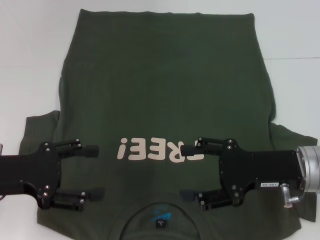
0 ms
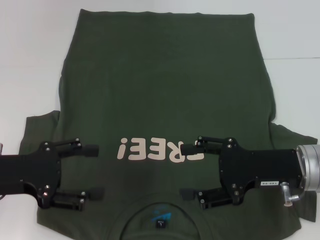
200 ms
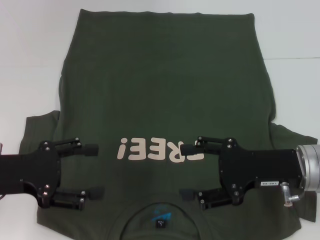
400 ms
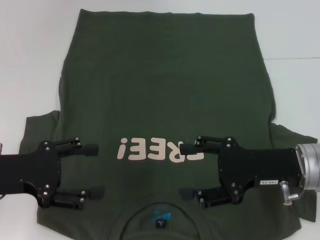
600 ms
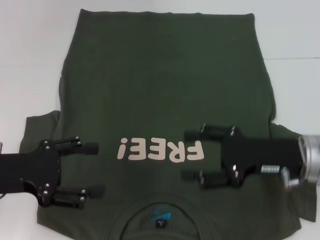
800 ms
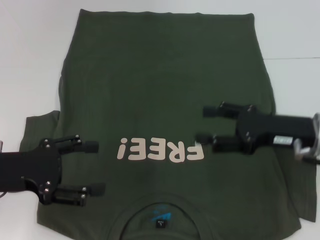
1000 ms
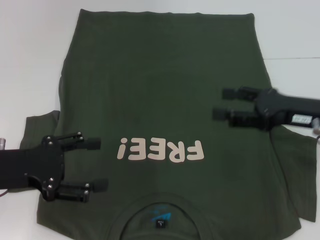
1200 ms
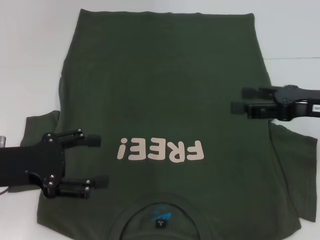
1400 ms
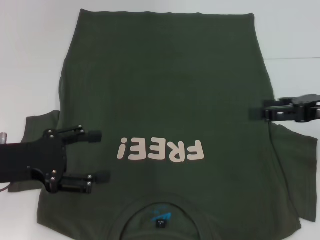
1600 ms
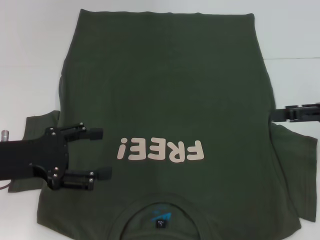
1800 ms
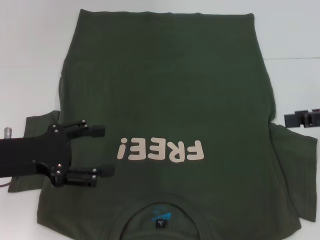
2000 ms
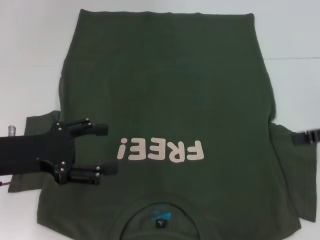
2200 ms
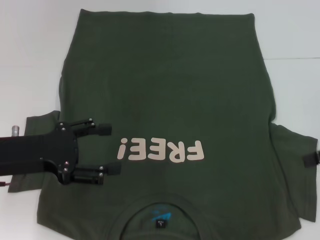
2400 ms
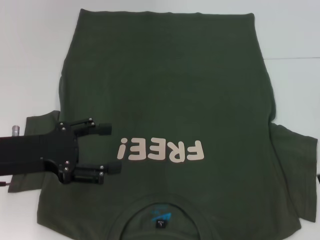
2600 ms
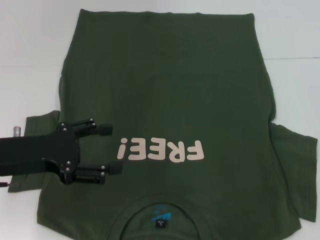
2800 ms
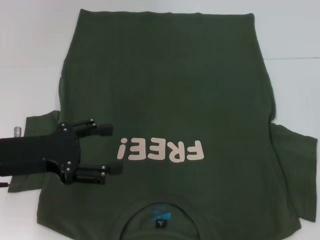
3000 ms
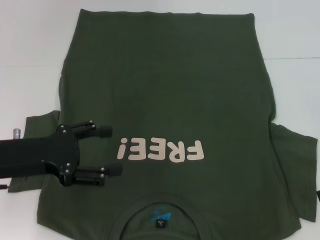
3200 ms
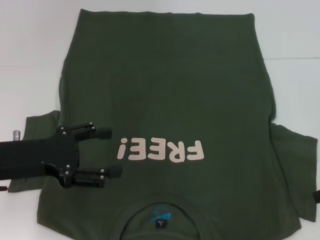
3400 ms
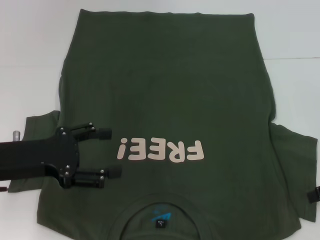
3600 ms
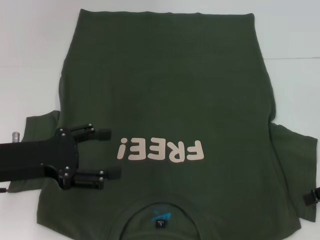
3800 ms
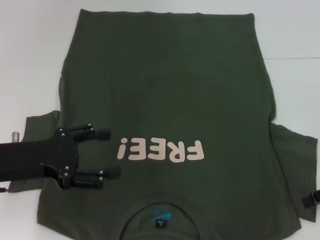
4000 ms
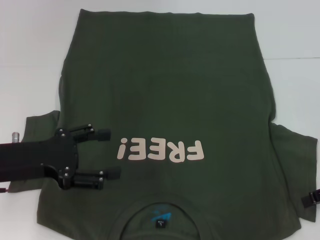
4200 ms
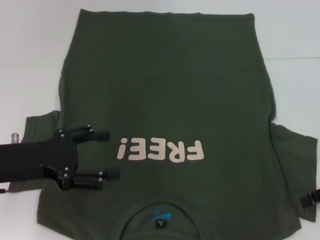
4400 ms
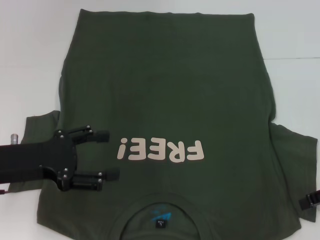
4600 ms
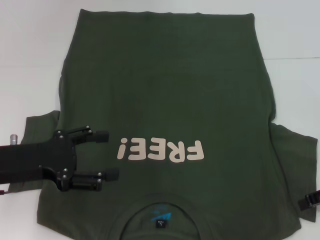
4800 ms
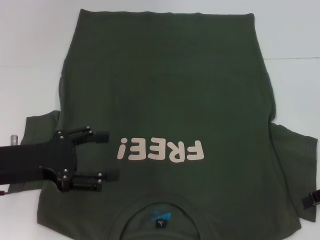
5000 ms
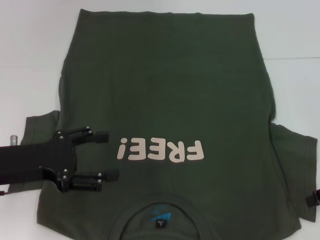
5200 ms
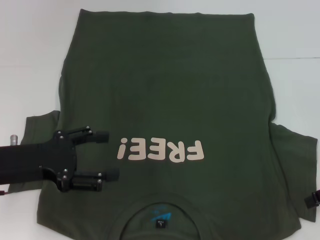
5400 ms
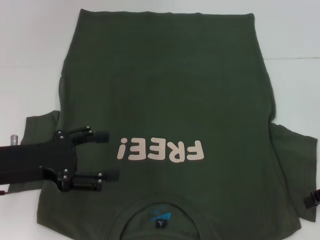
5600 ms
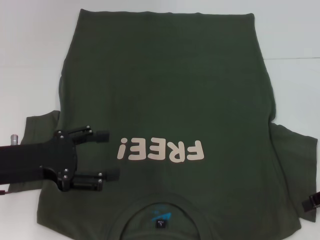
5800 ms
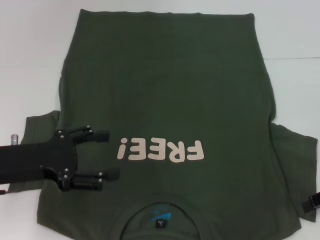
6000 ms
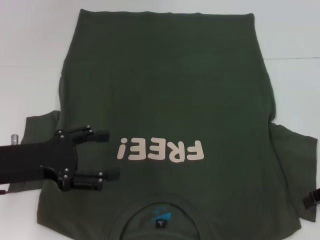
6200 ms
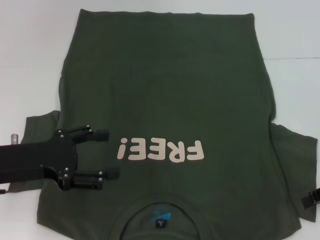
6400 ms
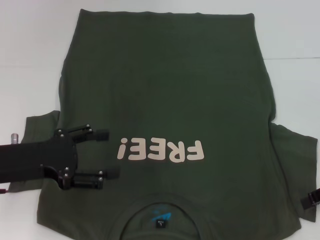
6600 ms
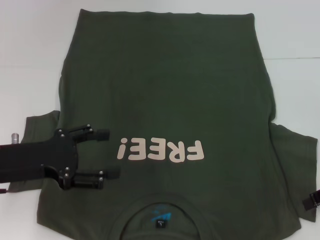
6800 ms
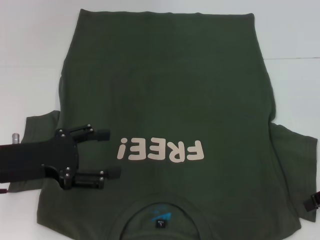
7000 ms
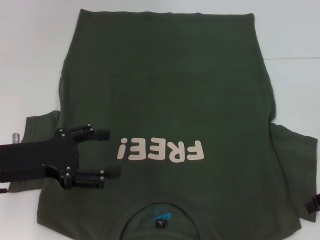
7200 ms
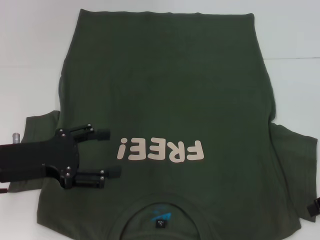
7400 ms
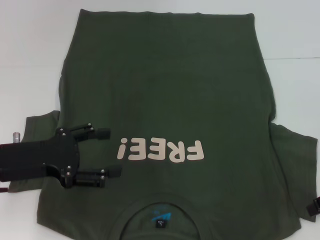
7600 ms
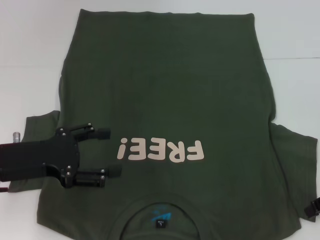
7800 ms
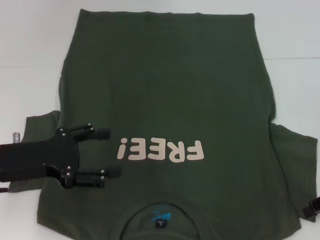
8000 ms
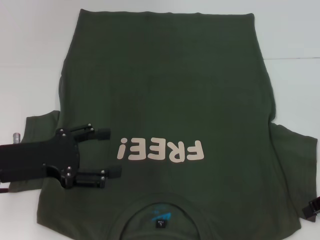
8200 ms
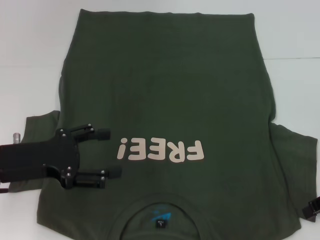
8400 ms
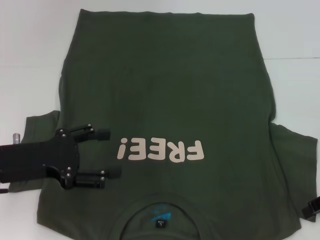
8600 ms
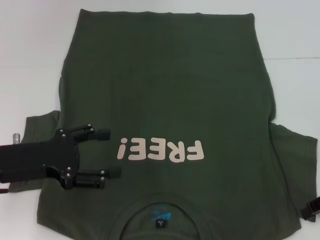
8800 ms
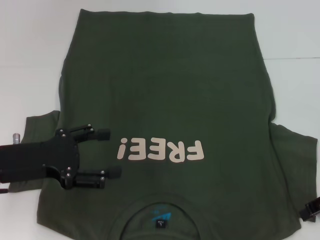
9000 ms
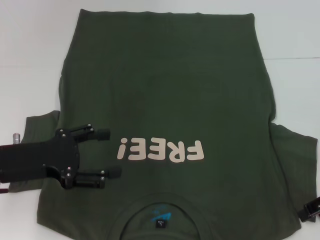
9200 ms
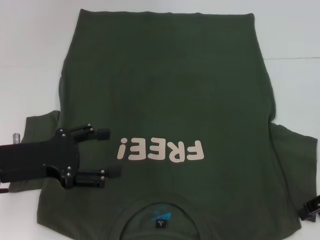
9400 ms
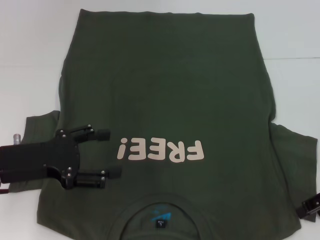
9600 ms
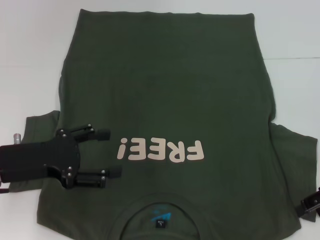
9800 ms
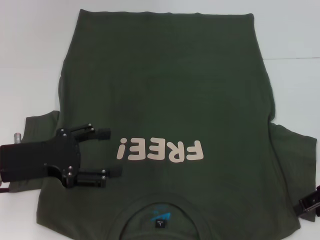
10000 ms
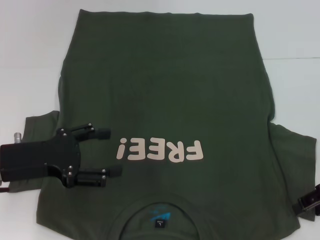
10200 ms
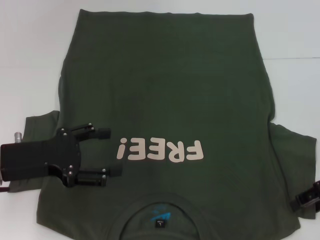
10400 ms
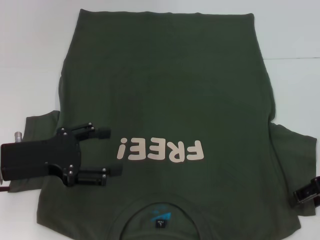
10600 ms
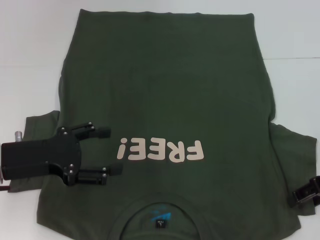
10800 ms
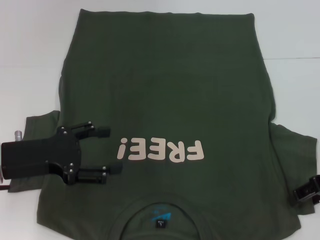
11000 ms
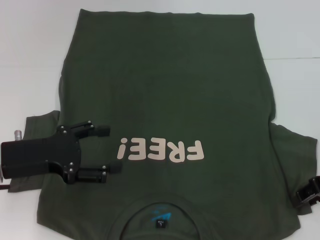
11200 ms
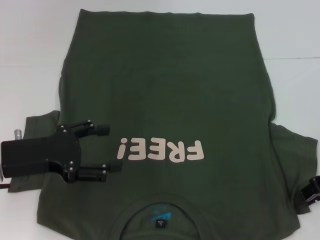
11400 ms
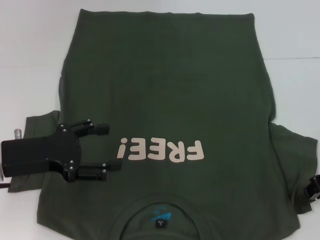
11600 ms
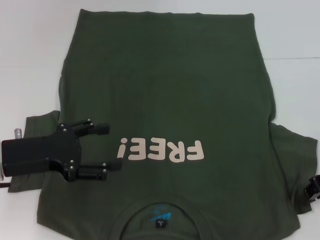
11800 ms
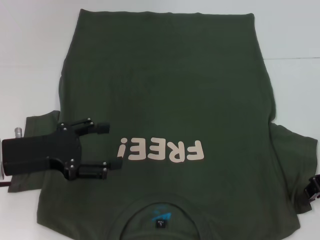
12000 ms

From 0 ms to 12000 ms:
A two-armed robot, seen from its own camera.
From 0 ms to 1600 ms: The right gripper goes roughly 10 cm to the right and upward.
From 1600 ms to 3000 ms: The right gripper shifts about 5 cm to the right.
From 3000 ms to 4400 ms: The grippers move only a little.
From 4400 ms to 6000 ms: Neither gripper changes place.
From 6000 ms to 7600 ms: Both grippers stay about where they are.
From 9000 ms to 10400 ms: There are only small adjustments of the grippers.
From 10400 ms to 12000 ms: The right gripper closes its fingers.

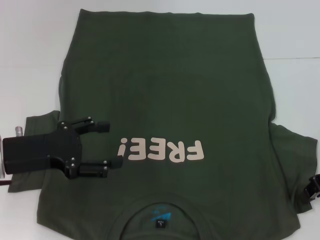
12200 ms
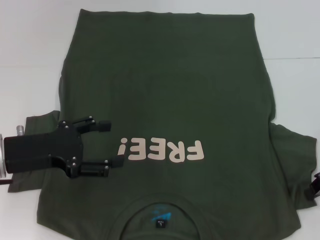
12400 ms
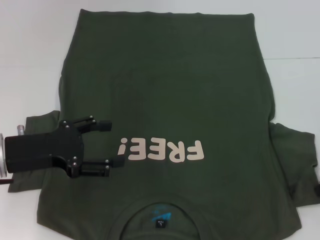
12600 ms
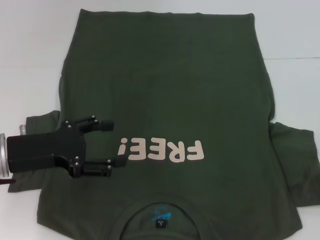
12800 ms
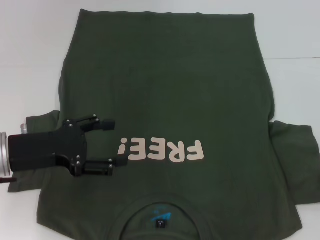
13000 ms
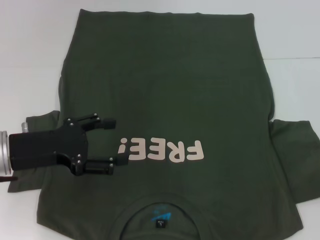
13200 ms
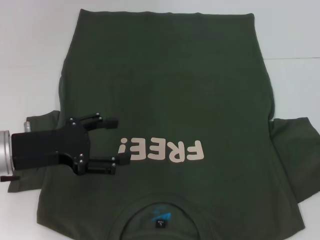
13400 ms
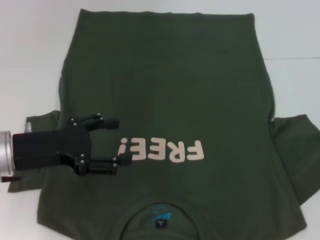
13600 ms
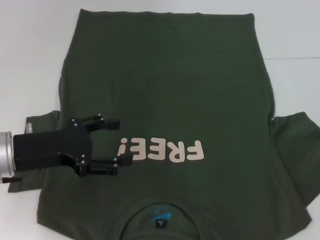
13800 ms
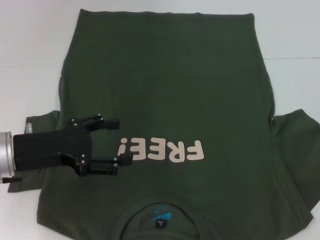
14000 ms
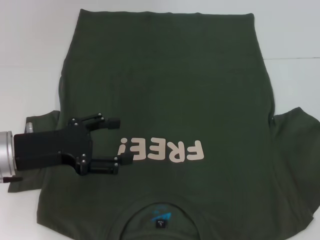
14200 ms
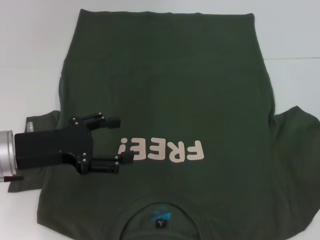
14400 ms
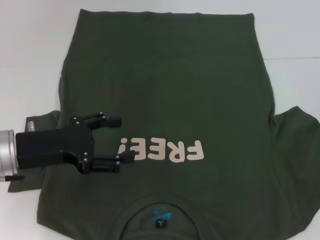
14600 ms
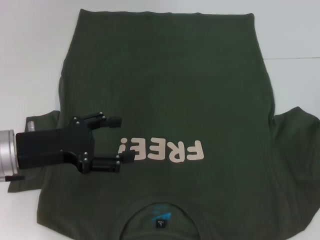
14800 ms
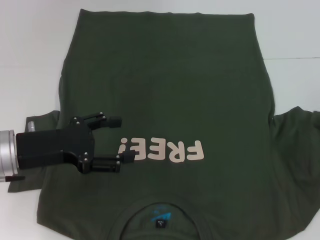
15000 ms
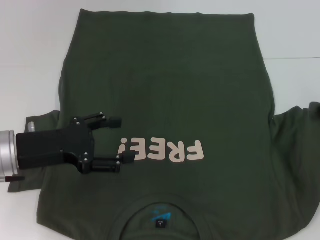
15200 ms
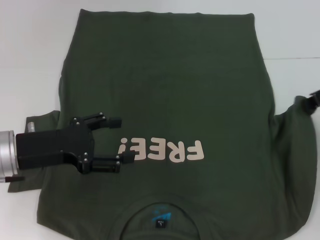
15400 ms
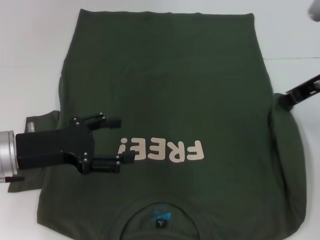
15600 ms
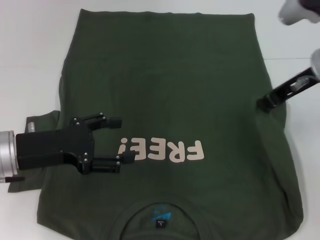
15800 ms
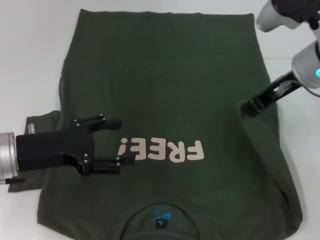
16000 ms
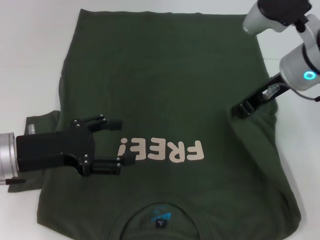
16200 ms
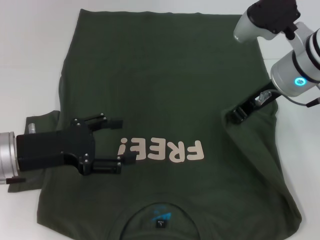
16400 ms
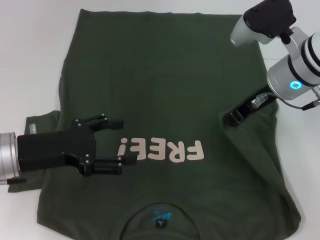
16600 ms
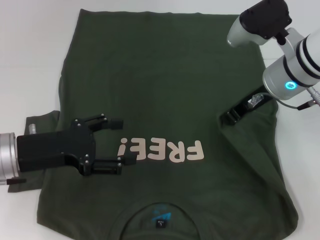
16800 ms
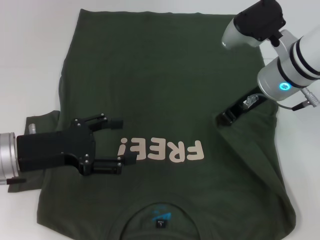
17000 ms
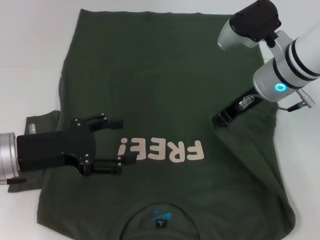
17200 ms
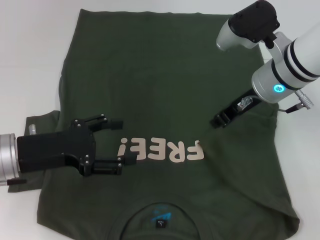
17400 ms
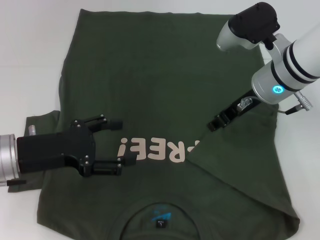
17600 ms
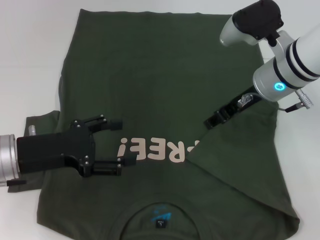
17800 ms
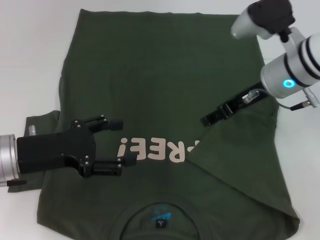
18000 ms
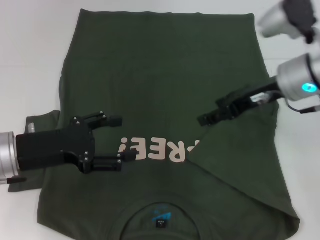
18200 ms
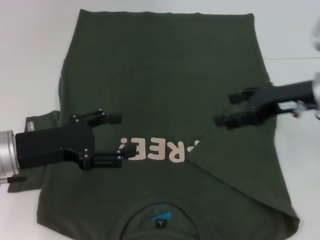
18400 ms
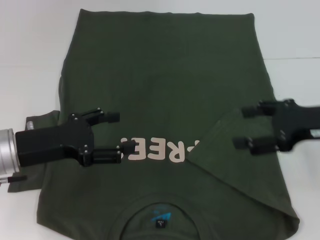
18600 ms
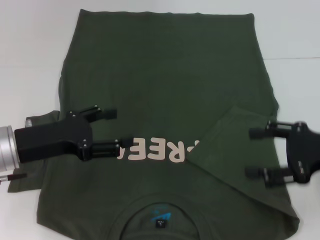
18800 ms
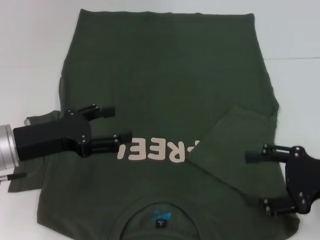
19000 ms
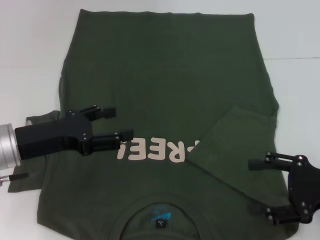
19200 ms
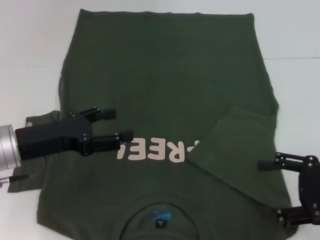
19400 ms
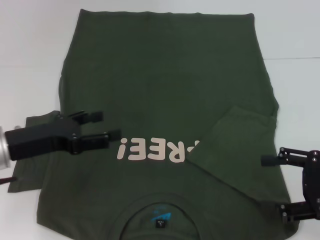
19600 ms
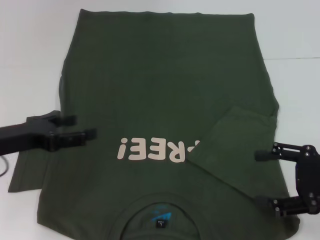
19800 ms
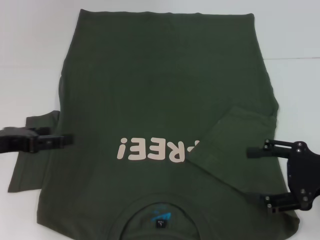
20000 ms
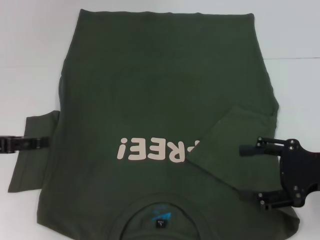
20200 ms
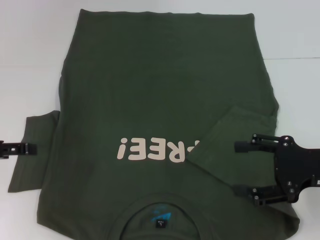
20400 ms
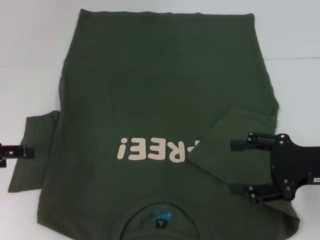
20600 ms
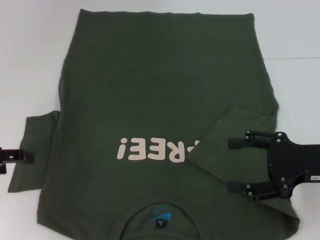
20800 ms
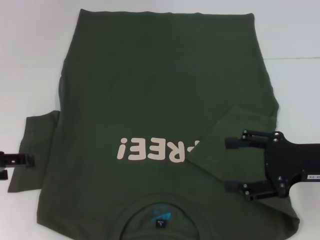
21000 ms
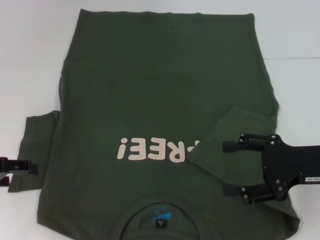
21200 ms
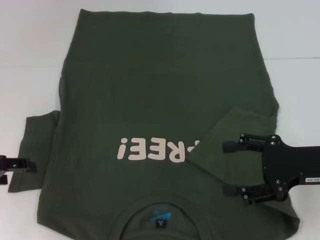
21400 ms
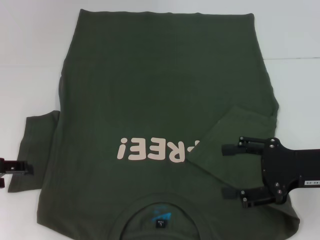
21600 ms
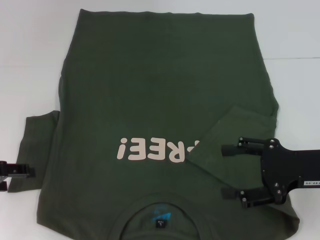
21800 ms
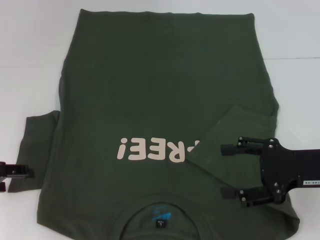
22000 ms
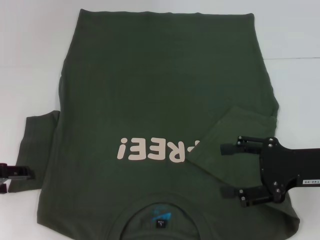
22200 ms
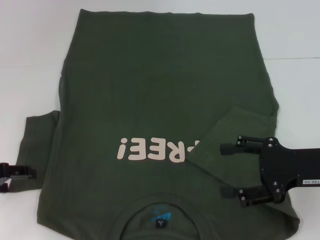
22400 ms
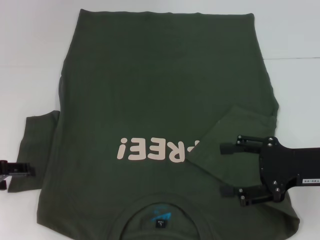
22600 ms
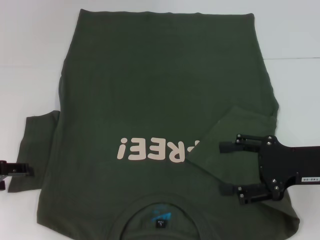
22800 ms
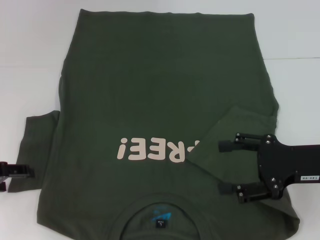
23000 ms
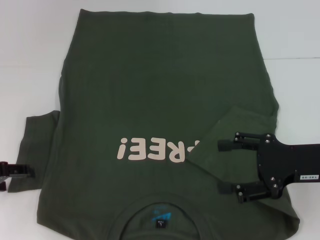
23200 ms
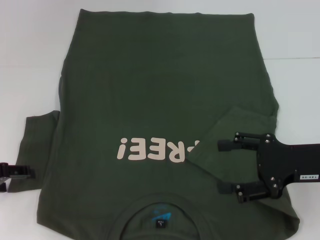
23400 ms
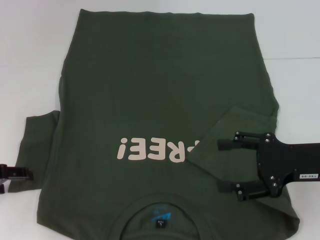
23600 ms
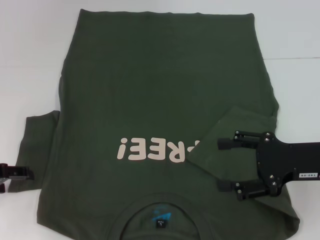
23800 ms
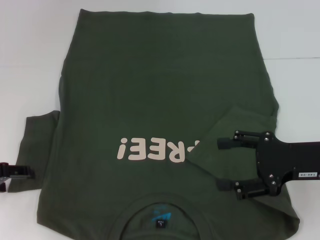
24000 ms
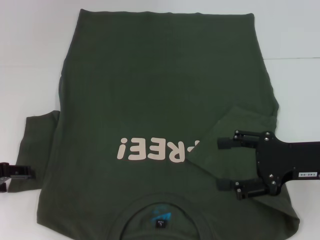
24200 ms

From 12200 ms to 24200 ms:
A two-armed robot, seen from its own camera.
Step, from 12200 ms to 17400 ms: Fold the bottom right sleeve with your right hand.
From 12200 ms to 13800 ms: The right gripper is displaced to the right by about 5 cm.
From 13800 ms to 15200 ms: The right gripper changes place by roughly 5 cm.
From 15200 ms to 16600 ms: The right gripper moves to the left, approximately 15 cm.
From 16600 ms to 18200 ms: The right gripper opens.
From 18200 ms to 19800 ms: The right gripper is displaced backward and to the right by some 20 cm.
From 19800 ms to 21200 ms: The left gripper heads to the left, covering roughly 5 cm.
From 21200 ms to 22600 ms: The grippers stay close to where they were, moving slightly.
From 22600 ms to 24200 ms: The two grippers keep their place.
